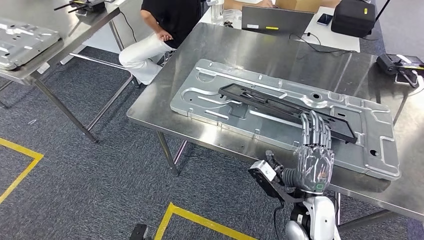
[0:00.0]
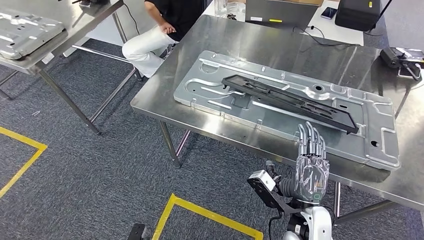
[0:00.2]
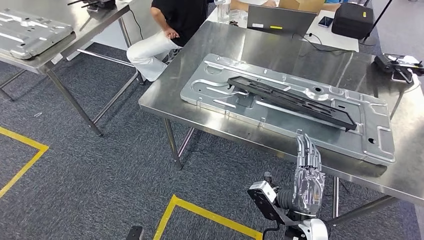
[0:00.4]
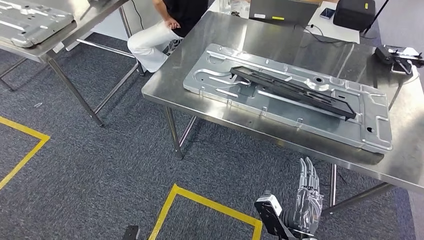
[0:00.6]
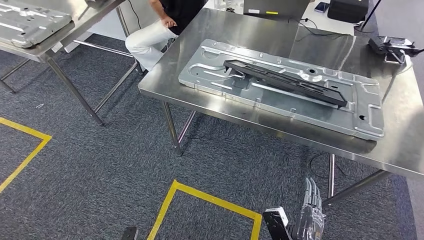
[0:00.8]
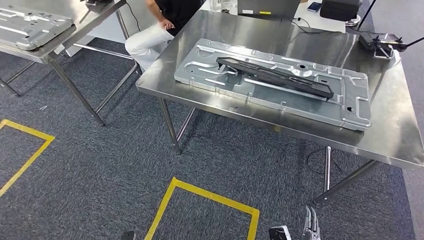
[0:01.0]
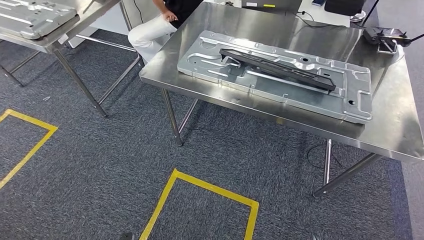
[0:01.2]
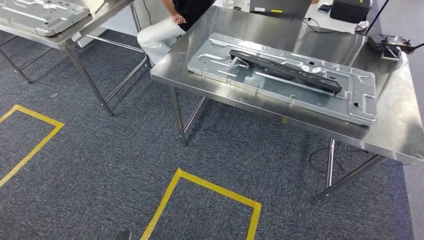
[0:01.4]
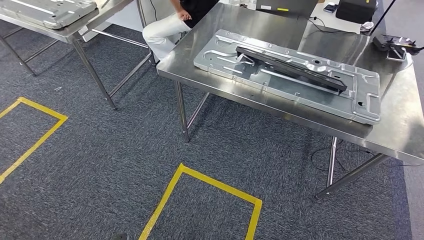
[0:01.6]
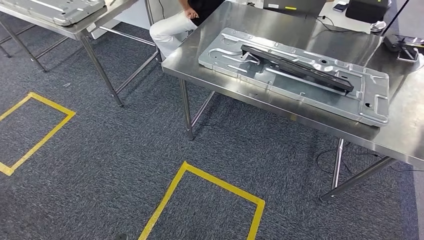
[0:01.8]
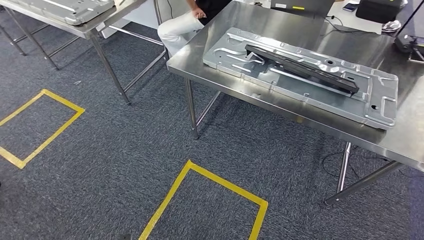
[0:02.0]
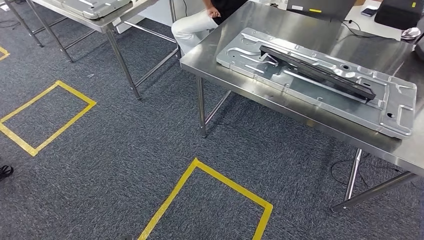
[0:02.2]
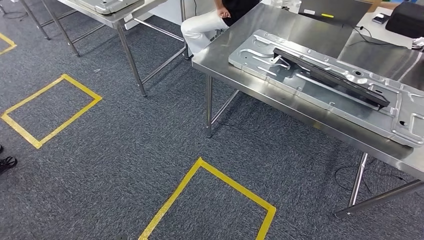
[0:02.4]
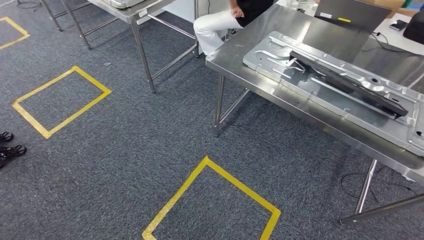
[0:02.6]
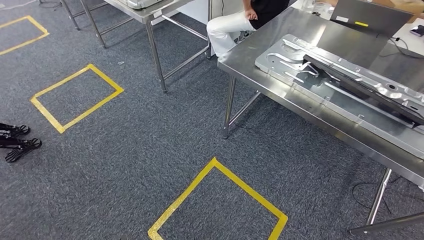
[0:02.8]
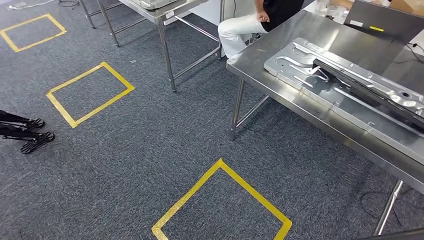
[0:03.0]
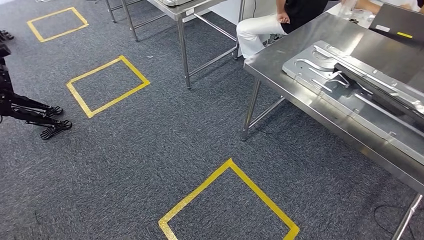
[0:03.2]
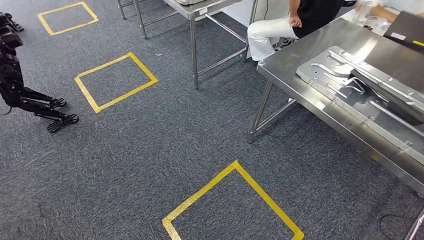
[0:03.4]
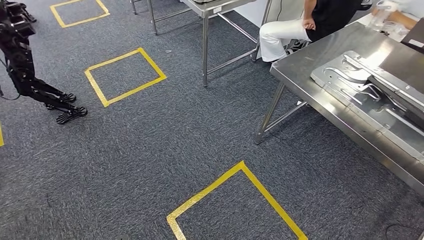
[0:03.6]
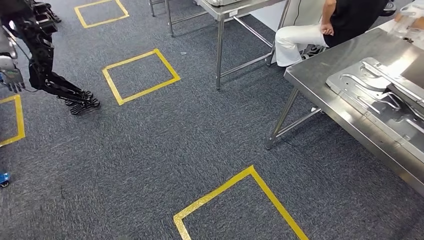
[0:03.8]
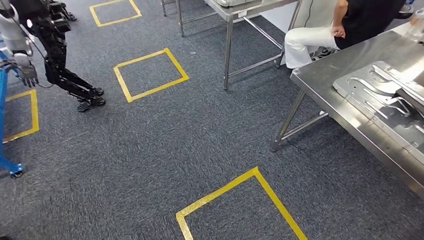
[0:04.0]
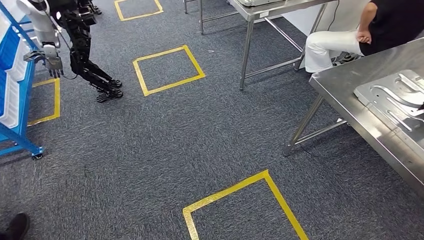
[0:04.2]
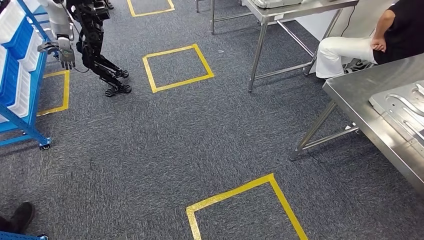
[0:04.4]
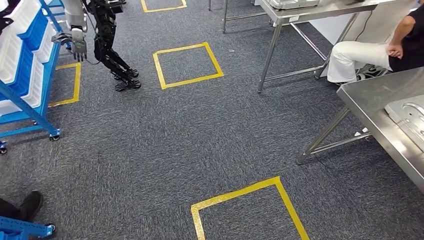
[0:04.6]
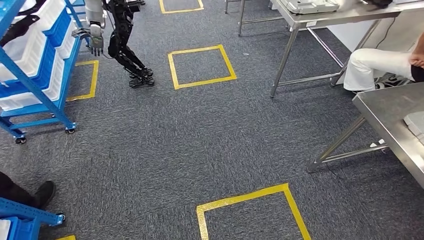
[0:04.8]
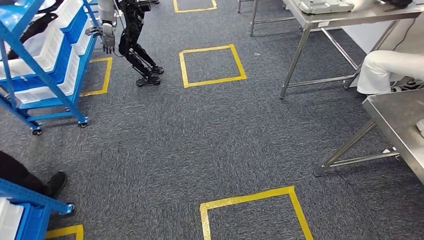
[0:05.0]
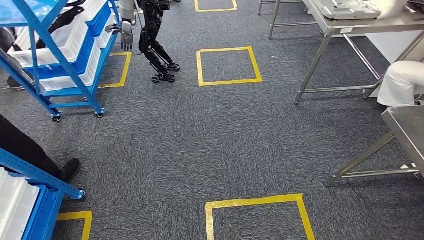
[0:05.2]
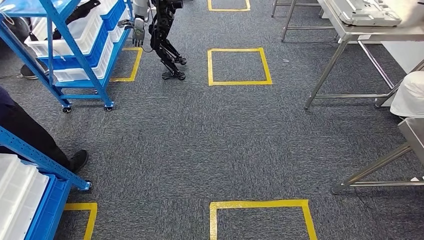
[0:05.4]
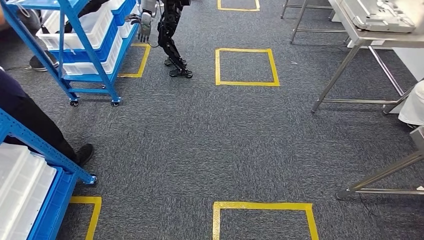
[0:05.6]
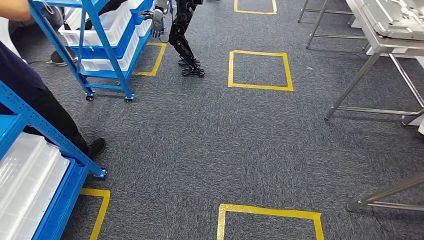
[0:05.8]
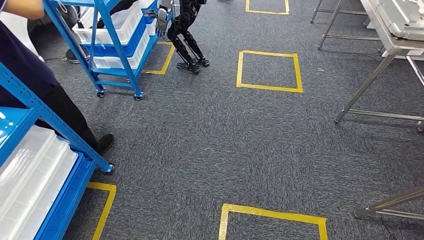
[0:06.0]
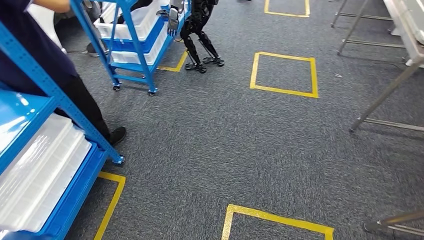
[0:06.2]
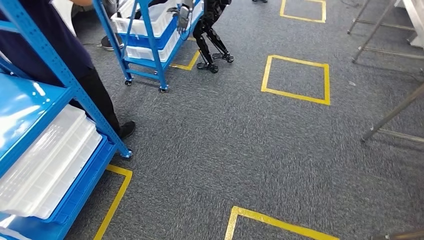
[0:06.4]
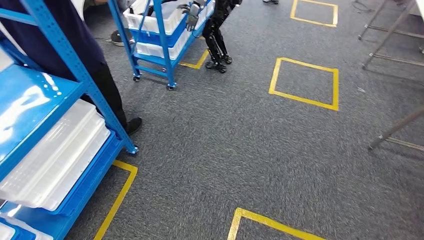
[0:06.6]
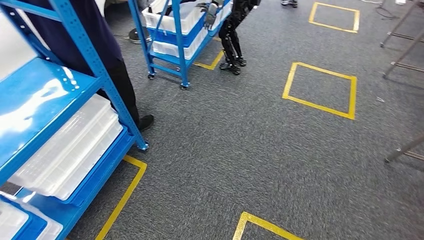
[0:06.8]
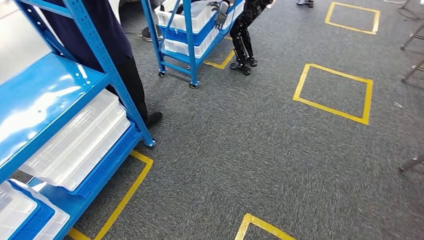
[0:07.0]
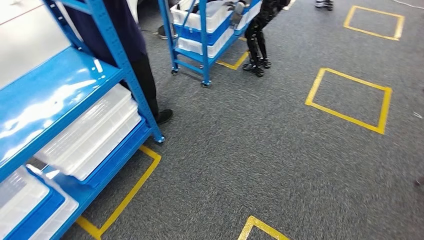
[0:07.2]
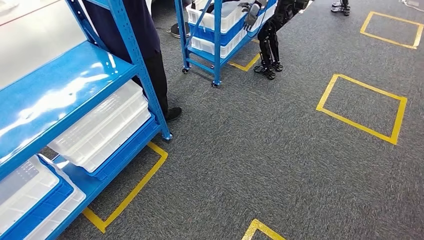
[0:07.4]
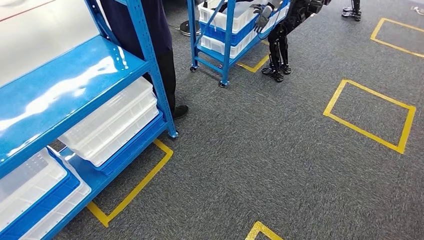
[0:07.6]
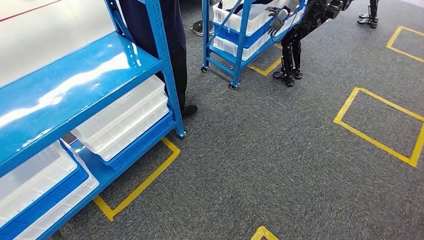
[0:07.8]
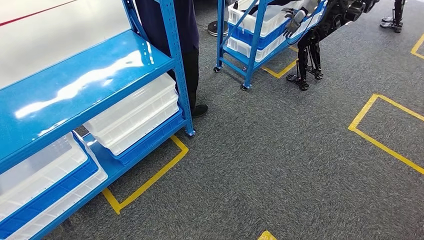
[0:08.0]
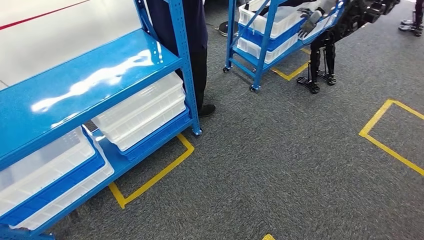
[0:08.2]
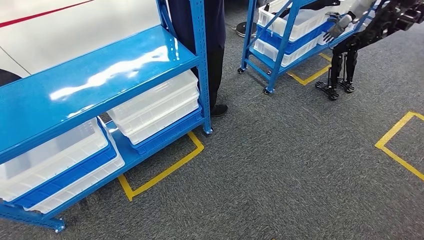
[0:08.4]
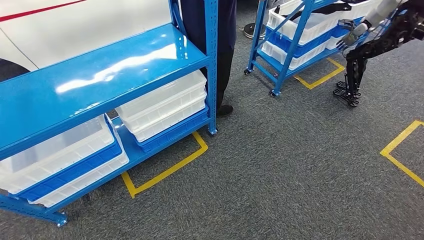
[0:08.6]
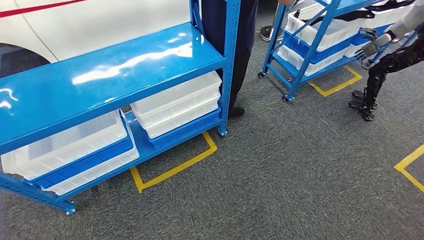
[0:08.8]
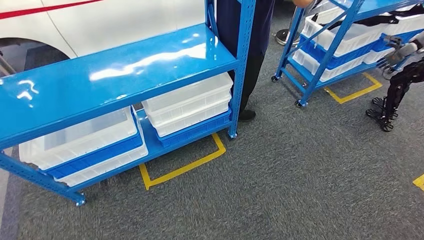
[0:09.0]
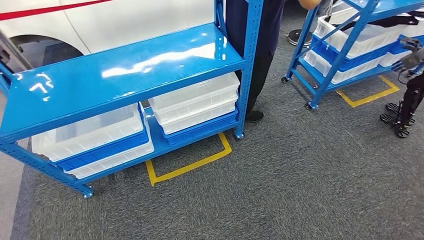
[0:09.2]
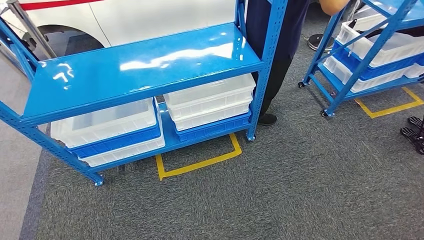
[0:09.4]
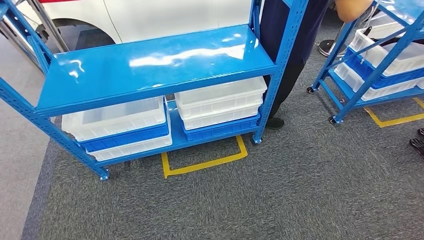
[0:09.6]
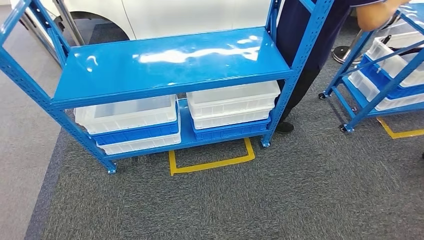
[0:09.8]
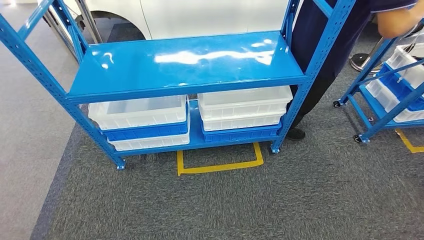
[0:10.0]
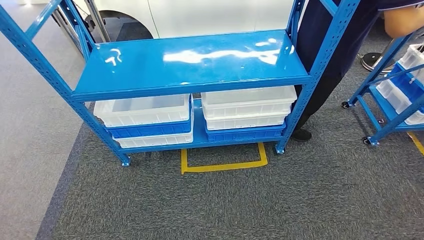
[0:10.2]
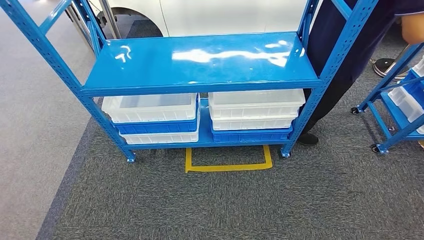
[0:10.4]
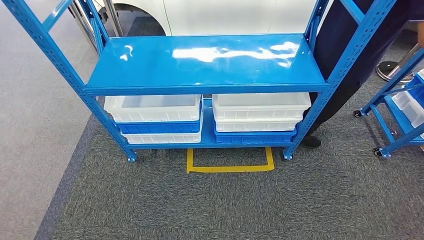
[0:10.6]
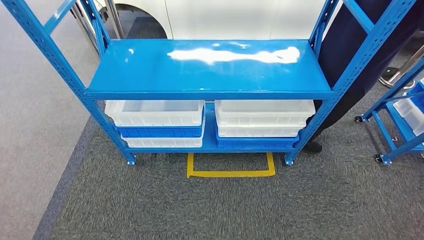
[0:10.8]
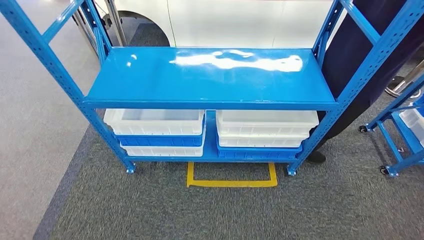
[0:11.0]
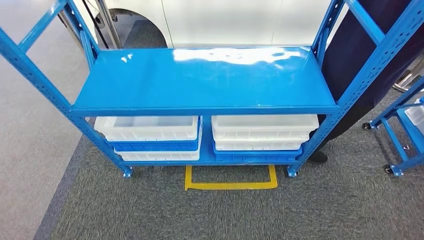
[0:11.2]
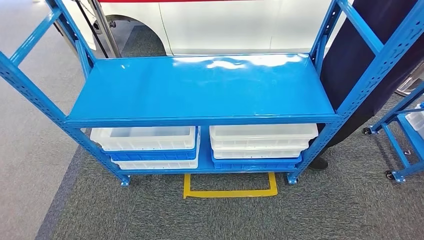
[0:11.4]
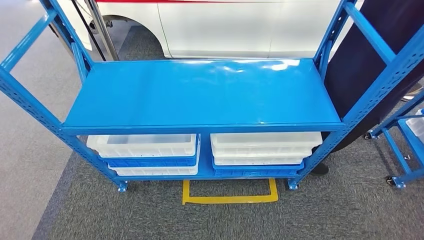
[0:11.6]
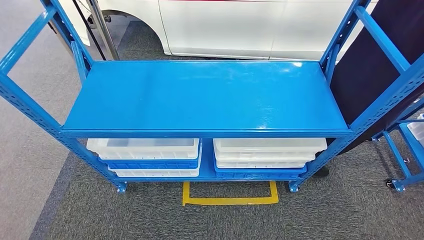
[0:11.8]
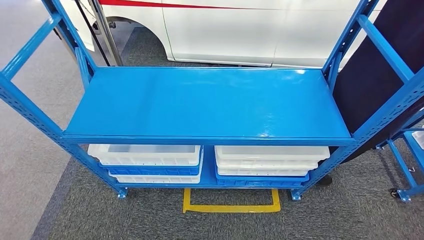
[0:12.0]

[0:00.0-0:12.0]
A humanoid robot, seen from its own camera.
Step, 0:00.0 to 0:10.4: Move to the initial position of the shelf.

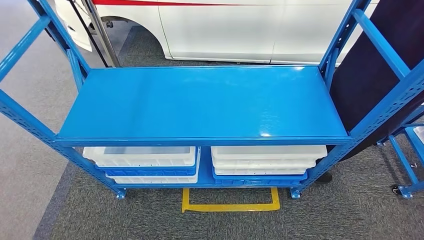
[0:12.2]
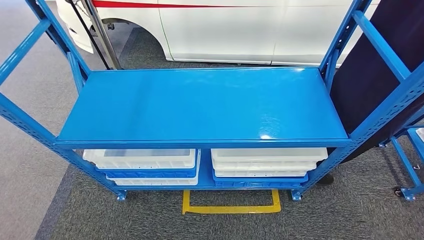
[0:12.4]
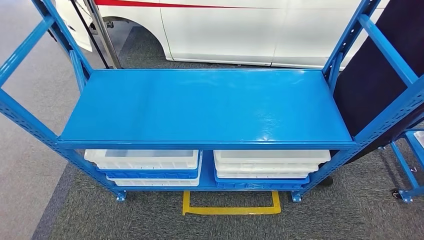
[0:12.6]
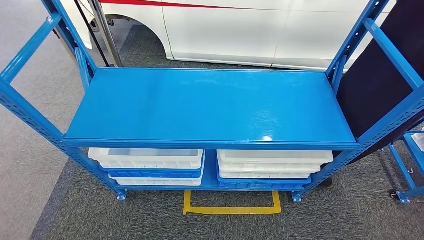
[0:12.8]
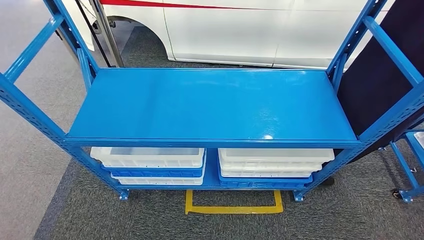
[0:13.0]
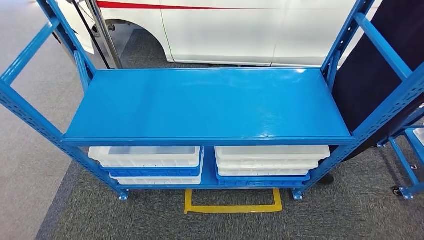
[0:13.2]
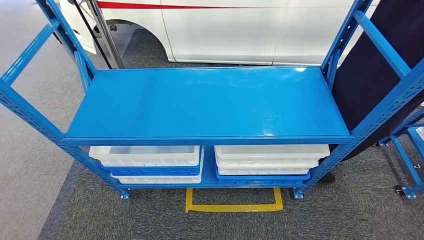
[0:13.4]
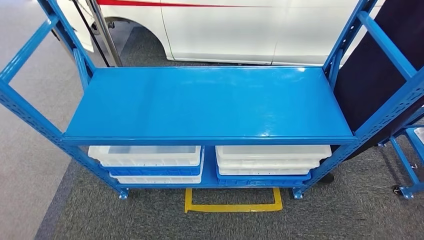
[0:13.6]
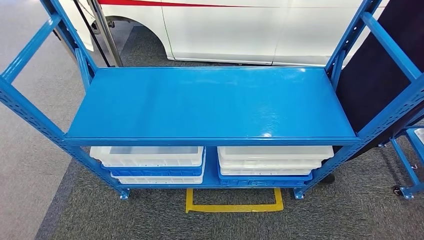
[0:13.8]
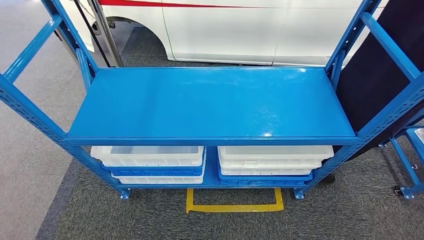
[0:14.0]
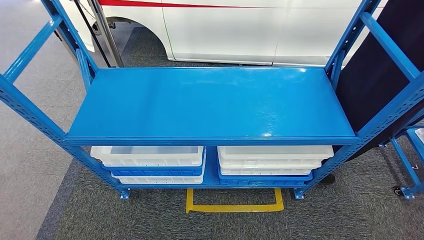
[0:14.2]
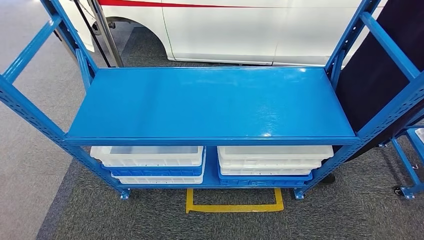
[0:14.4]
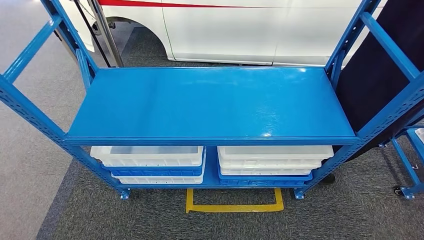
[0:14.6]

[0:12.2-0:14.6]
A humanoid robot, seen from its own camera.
0:12.2 to 0:13.4: Neither hand changes place.
0:13.4 to 0:14.6: The hands move only a little.
